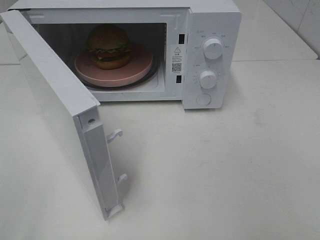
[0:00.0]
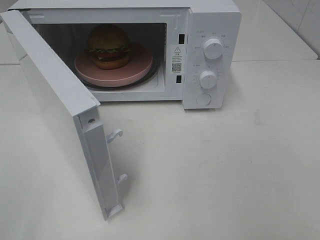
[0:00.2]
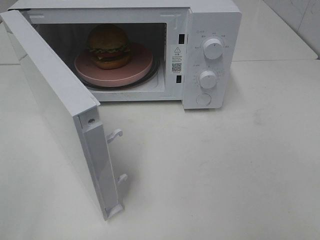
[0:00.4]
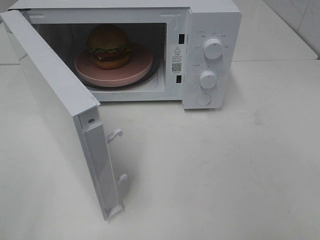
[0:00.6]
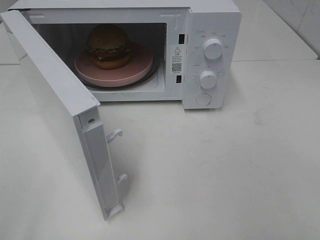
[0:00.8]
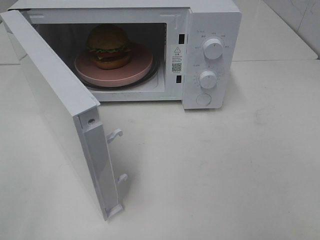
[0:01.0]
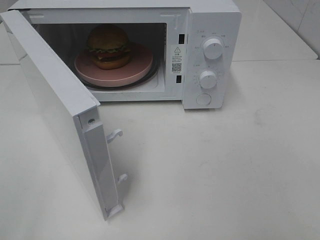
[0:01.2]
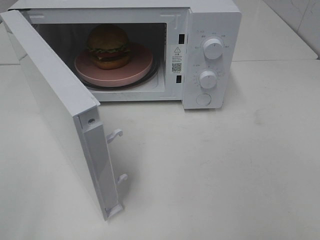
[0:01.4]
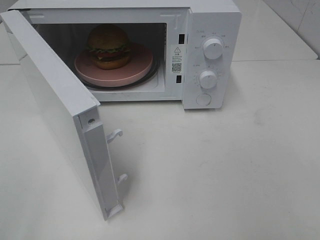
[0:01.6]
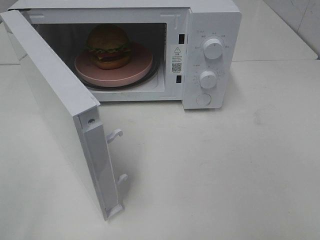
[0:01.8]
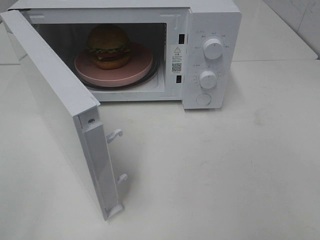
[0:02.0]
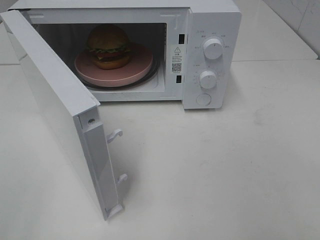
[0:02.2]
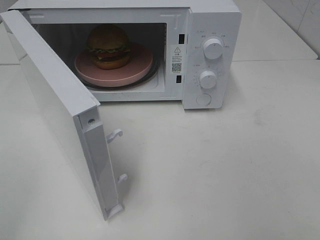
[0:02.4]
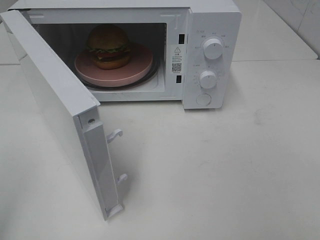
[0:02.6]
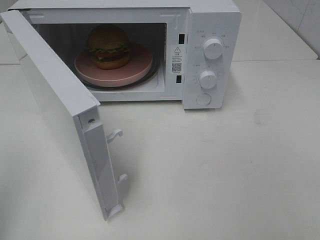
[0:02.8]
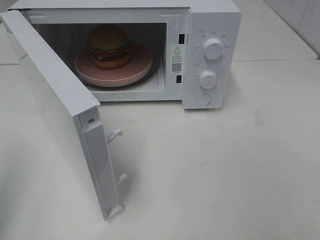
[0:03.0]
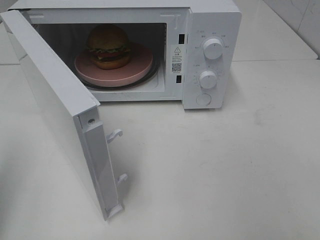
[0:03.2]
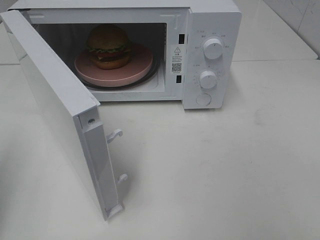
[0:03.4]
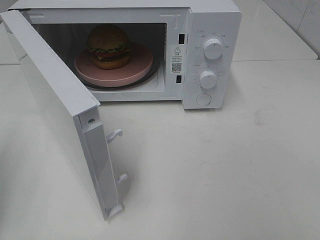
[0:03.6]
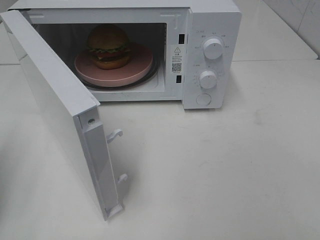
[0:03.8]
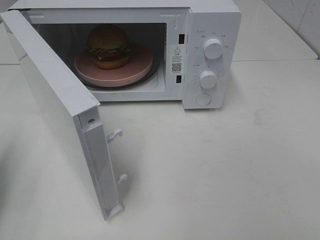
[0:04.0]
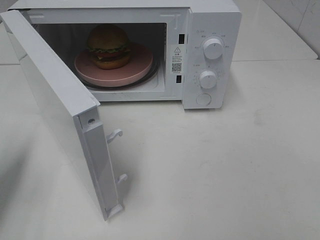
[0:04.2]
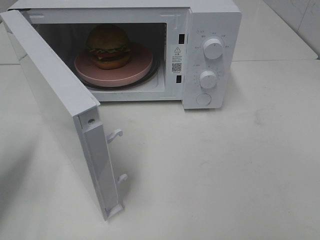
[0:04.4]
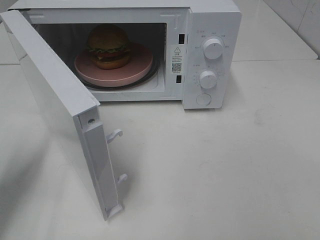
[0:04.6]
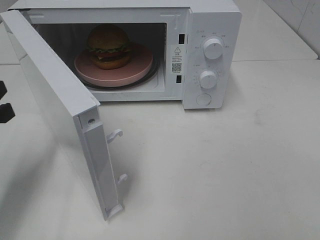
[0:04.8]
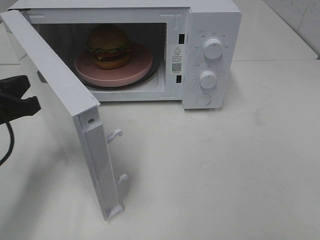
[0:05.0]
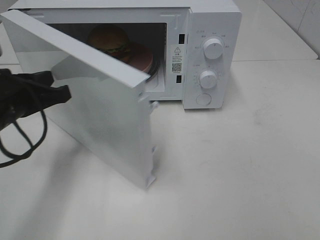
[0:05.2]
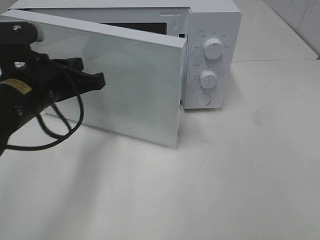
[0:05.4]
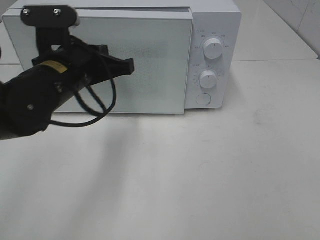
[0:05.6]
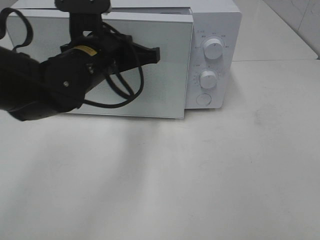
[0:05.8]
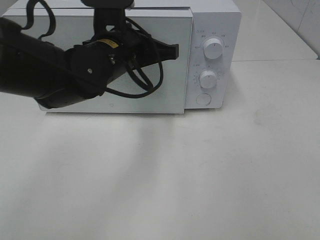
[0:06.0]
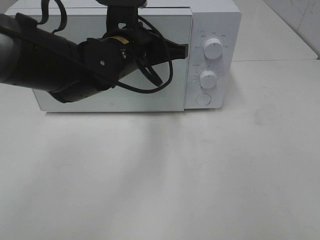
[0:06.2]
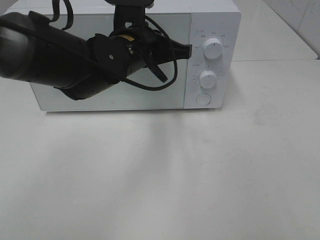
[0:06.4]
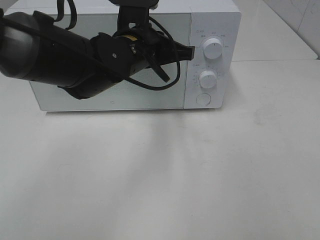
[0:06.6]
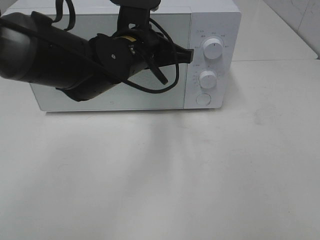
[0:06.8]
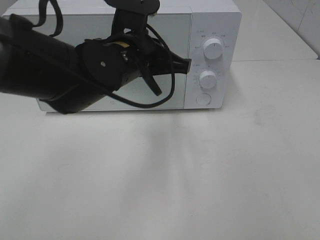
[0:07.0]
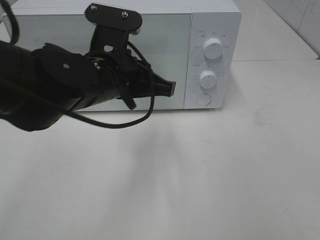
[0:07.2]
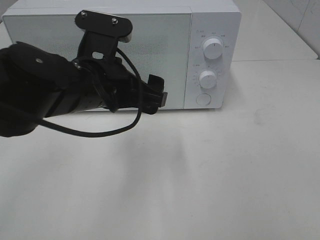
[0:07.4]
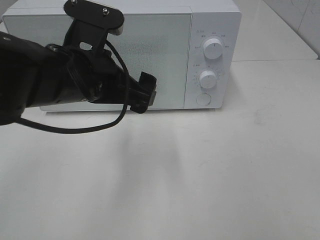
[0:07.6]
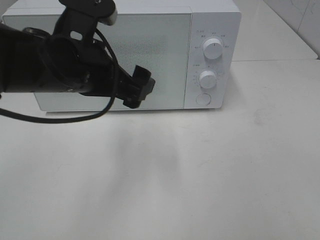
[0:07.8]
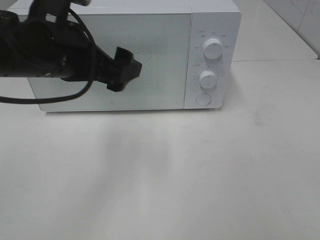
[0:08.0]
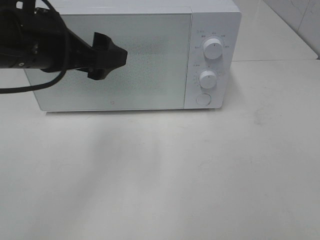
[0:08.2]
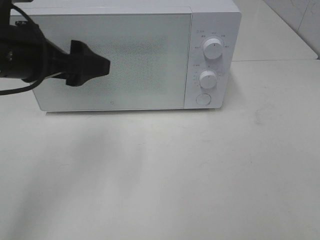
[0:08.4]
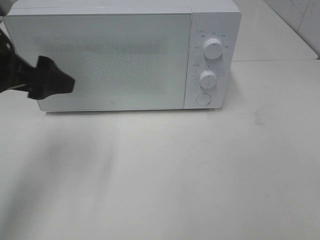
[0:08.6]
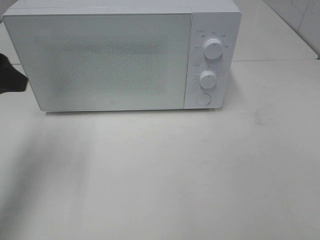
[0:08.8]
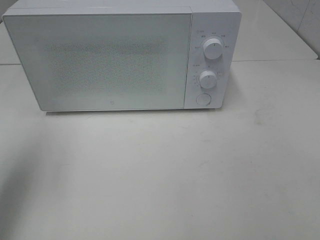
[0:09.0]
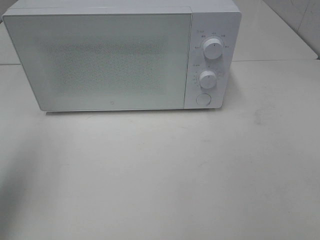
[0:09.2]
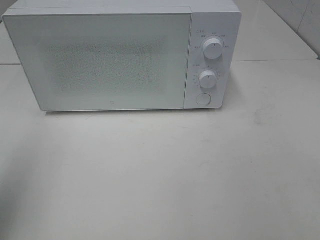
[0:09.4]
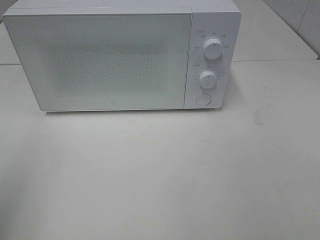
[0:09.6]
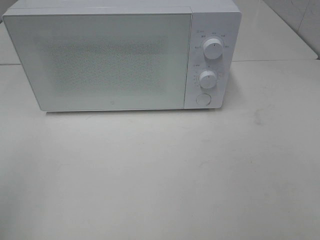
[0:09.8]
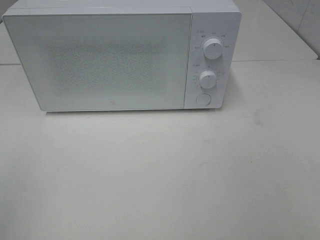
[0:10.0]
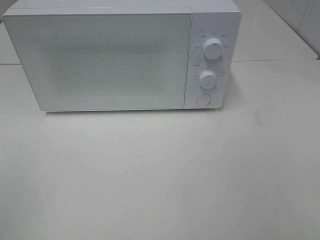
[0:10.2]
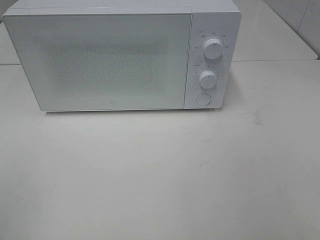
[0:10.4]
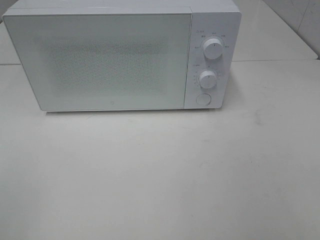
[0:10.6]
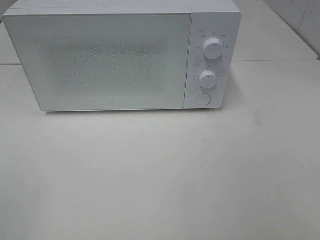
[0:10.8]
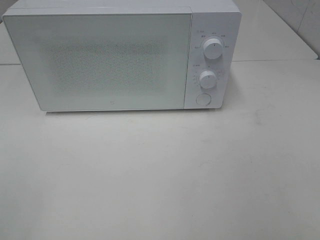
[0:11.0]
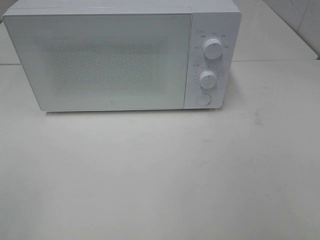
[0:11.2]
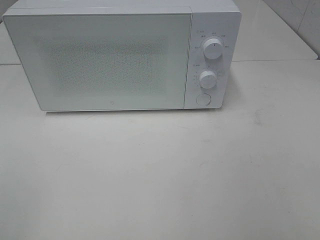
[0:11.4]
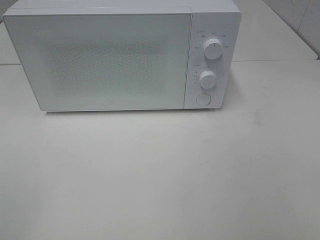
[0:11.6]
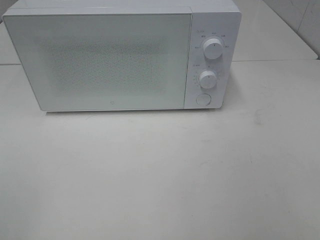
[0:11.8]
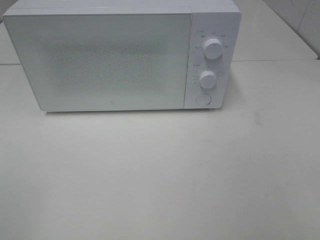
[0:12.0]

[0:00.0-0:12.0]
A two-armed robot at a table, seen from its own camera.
Task of the whole recording: Heat the burger.
Step, 0:00.0 to 0:08.0: Left hand: close the microwave door.
0:00.0 to 0:01.6: Neither gripper changes place.
0:03.0 to 0:04.4: The left gripper heads downward and forward, covering about 15 cm.
0:04.4 to 0:06.0: The left gripper shifts some 30 cm to the right and forward.
0:06.0 to 0:07.6: The left gripper is displaced backward by approximately 10 cm, and opens its fingers.
0:07.6 to 0:09.0: The left gripper goes roughly 20 cm to the left.
0:09.0 to 0:10.4: The left gripper heads backward, covering about 20 cm.

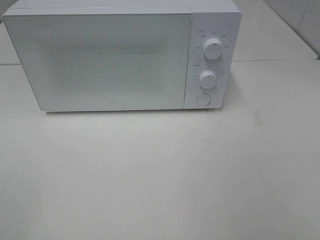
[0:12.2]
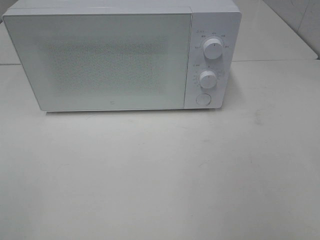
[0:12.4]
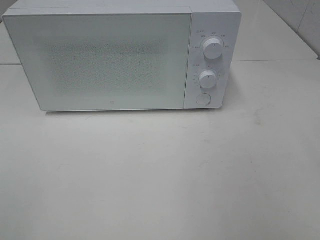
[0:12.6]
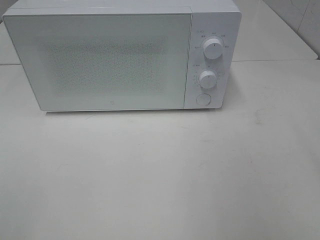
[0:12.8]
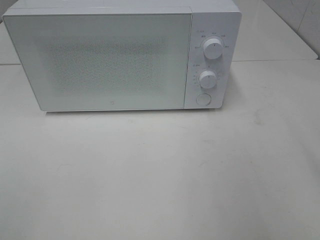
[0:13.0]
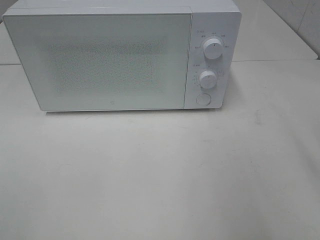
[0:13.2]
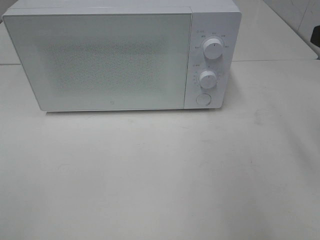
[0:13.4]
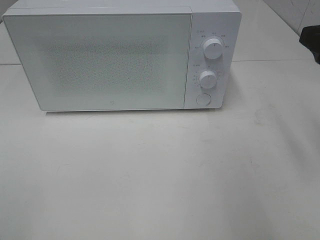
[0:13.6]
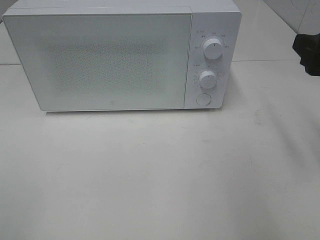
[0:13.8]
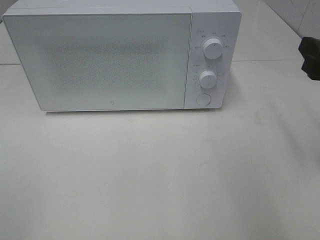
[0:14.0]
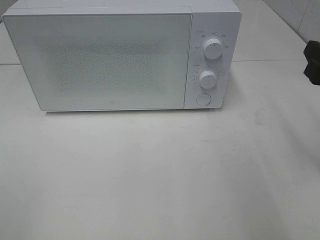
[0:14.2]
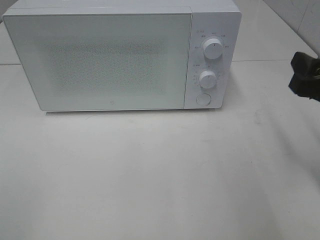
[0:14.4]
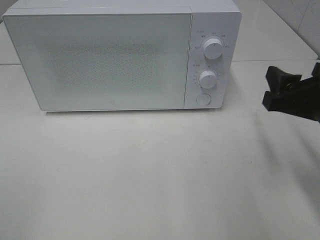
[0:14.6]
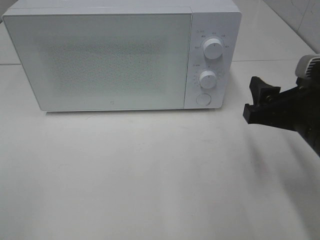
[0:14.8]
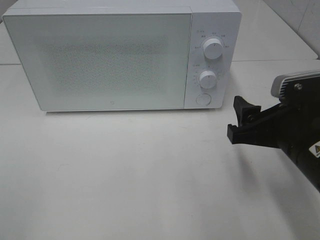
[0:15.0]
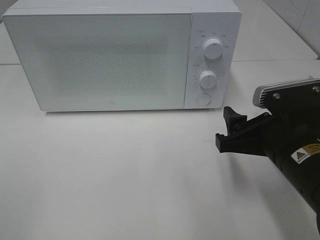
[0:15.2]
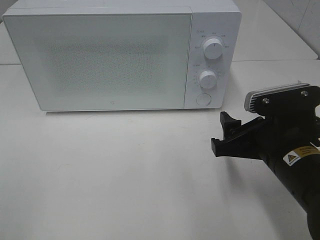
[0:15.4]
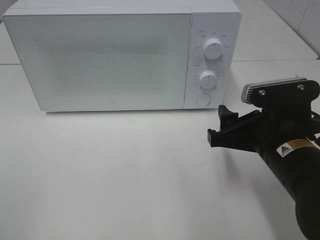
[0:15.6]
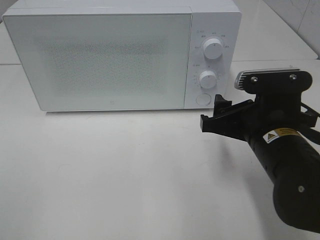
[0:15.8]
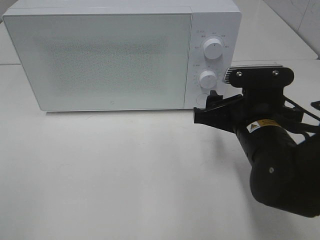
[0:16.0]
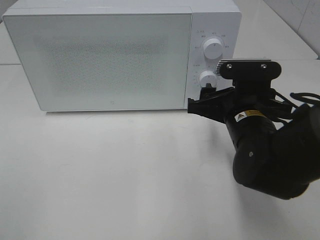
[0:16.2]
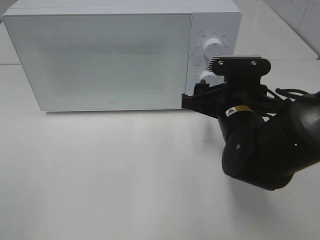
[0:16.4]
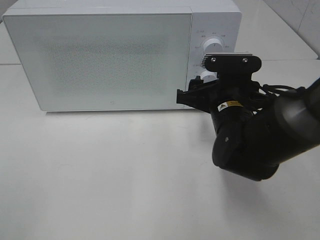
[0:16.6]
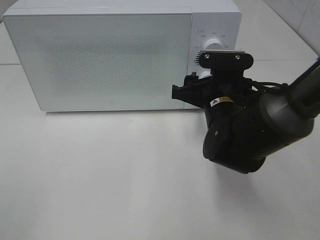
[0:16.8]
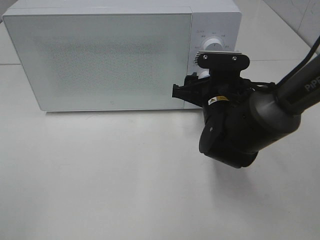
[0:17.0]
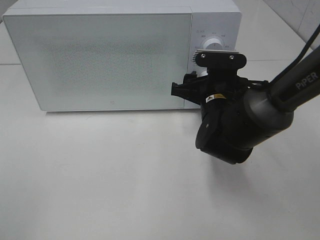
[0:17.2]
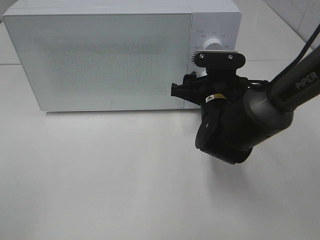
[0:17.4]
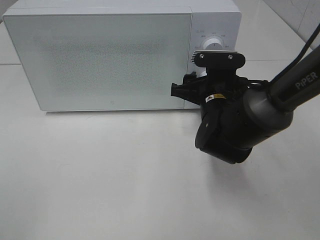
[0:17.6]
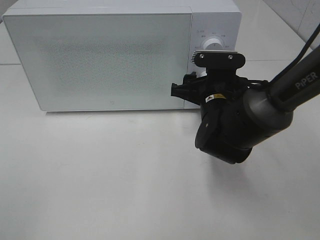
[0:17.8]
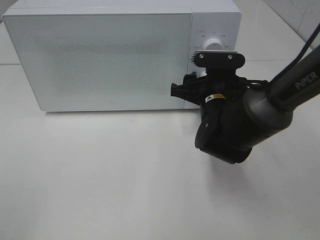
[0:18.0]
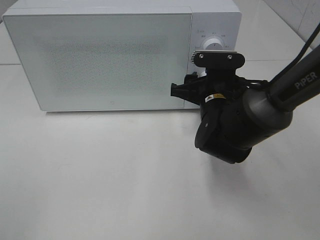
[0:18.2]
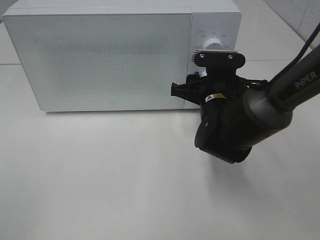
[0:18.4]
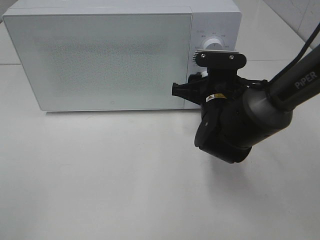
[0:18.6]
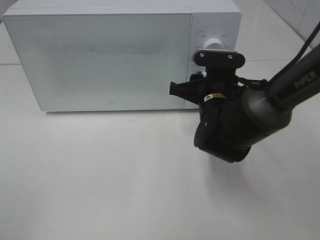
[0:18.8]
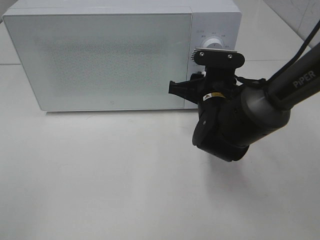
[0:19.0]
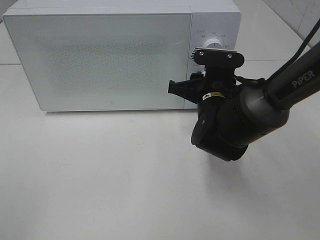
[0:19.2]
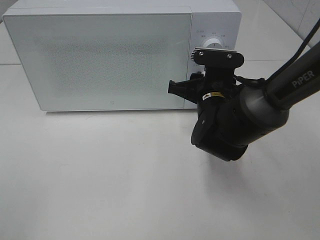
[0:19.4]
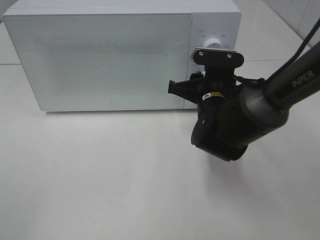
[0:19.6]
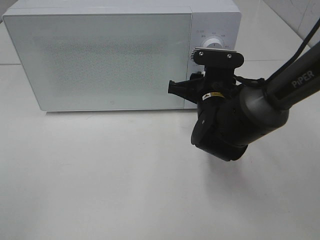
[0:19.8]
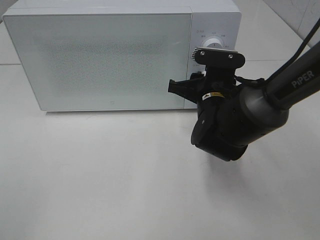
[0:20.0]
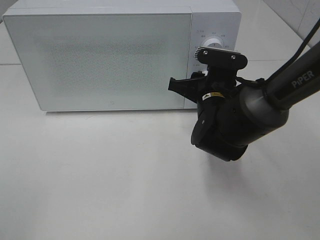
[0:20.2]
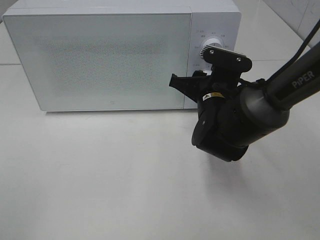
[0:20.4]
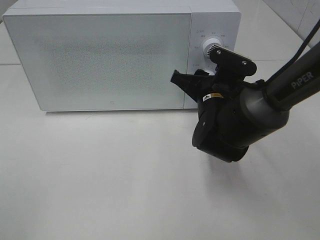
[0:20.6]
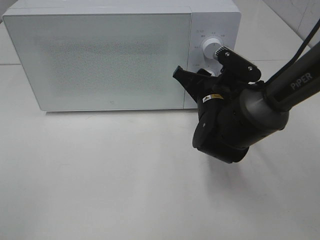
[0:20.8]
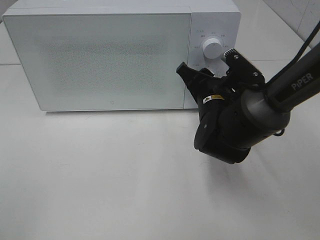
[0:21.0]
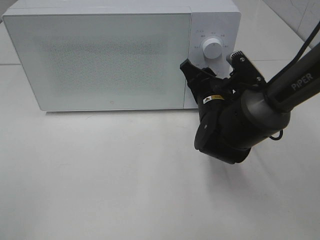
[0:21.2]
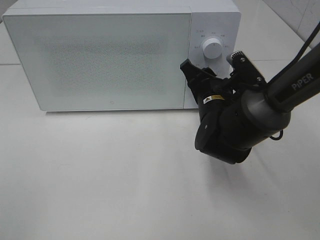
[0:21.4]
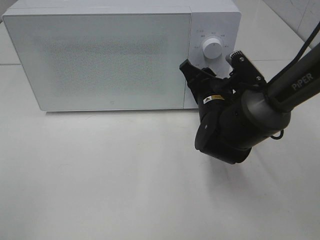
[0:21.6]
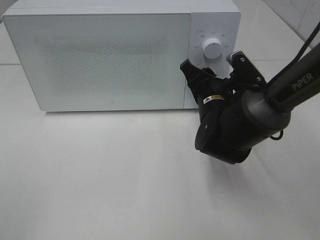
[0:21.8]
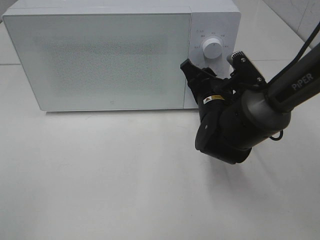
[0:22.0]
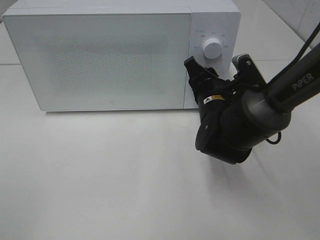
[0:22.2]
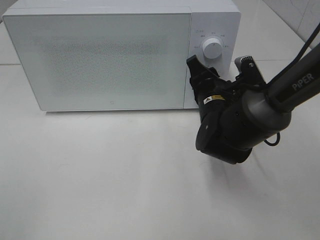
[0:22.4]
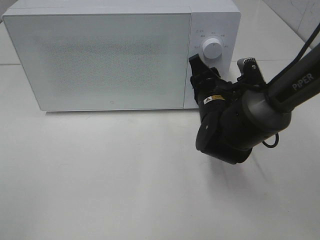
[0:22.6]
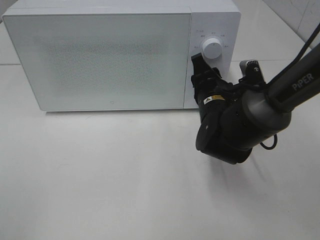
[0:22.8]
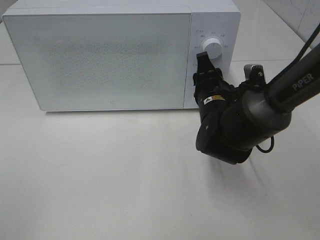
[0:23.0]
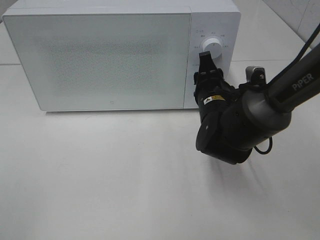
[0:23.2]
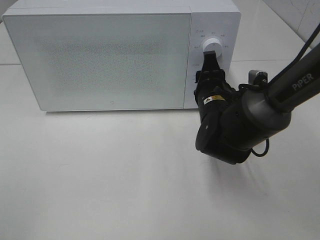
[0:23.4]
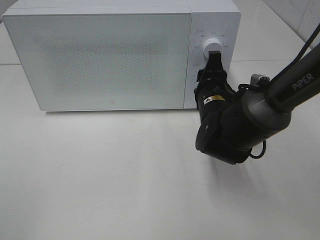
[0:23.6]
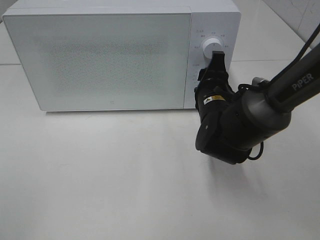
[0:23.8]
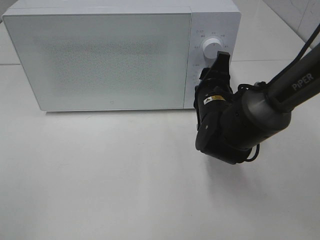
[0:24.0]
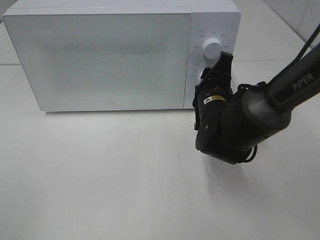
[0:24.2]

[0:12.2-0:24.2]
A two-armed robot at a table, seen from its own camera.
Task of the whole recording: Heat the burger.
0:12.2 to 0:13.8: The right gripper travels forward by roughly 20 cm.
0:13.8 to 0:15.2: The right gripper heads downward and to the left, covering roughly 15 cm.
0:15.2 to 0:16.6: The right gripper travels forward and to the left by approximately 10 cm.
0:16.6 to 0:18.2: The grippers stay close to where they were, moving slightly.
0:18.2 to 0:19.8: Neither gripper changes place.
0:21.2 to 0:22.6: The grippers make only small movements.
